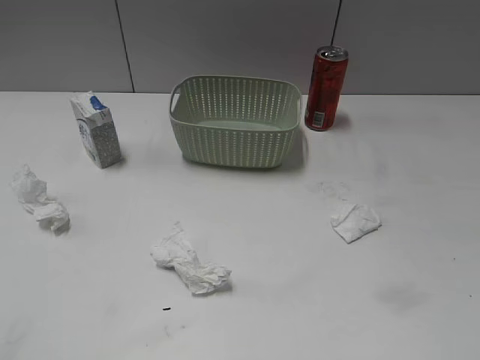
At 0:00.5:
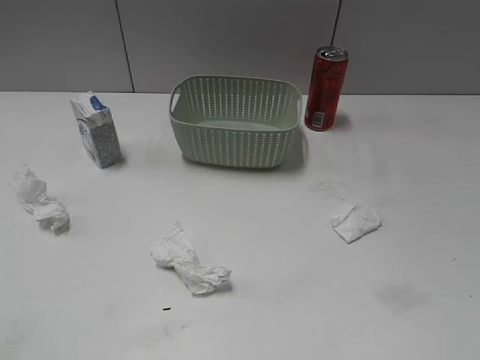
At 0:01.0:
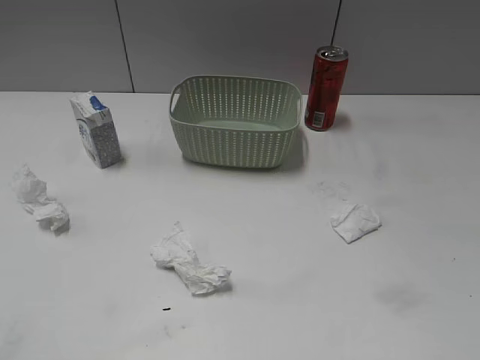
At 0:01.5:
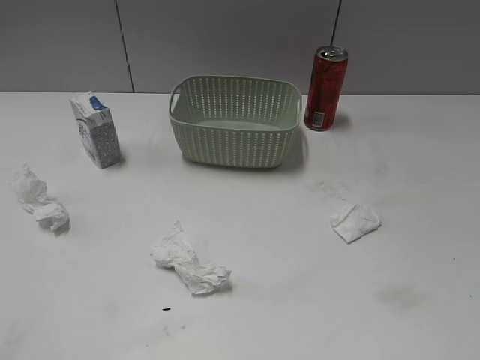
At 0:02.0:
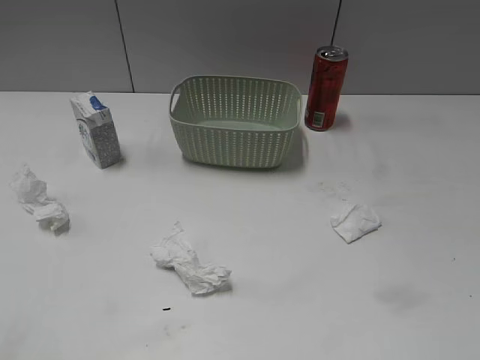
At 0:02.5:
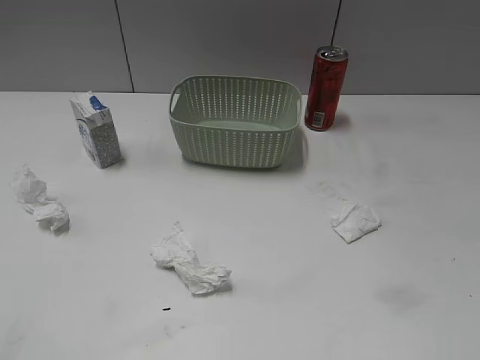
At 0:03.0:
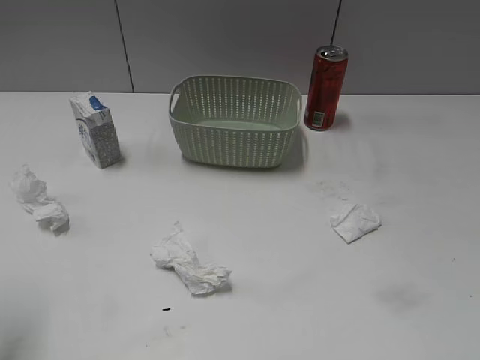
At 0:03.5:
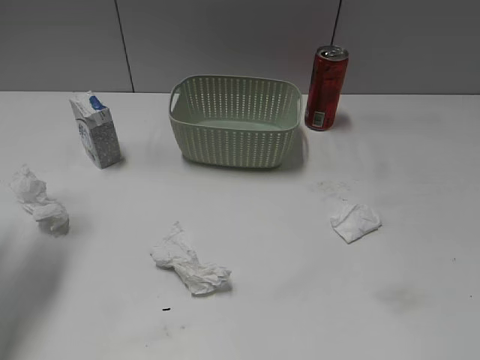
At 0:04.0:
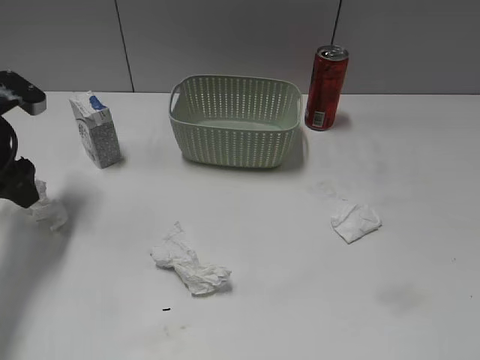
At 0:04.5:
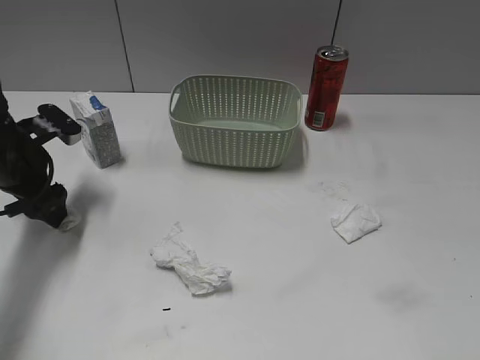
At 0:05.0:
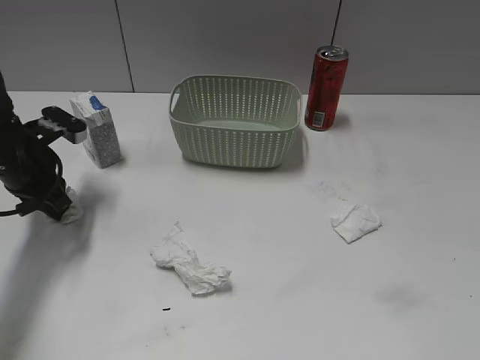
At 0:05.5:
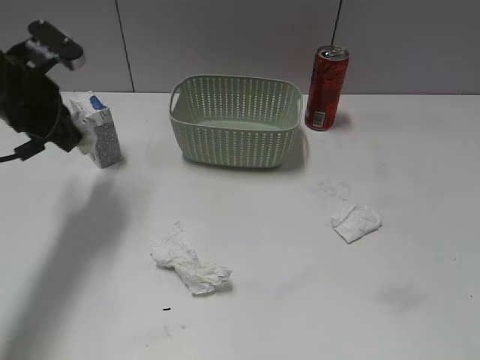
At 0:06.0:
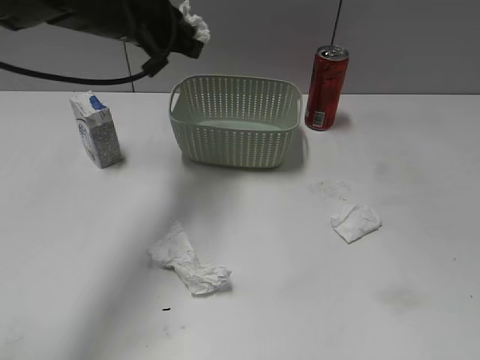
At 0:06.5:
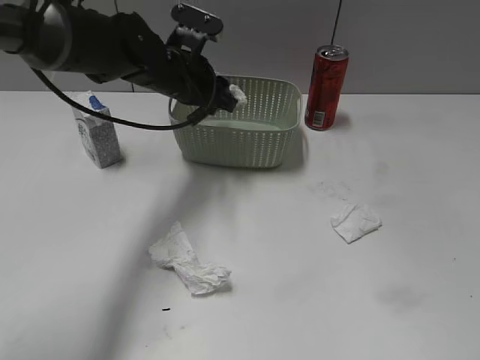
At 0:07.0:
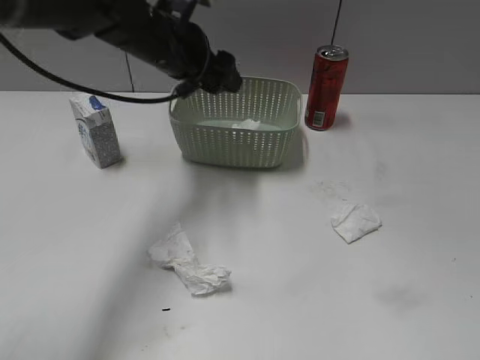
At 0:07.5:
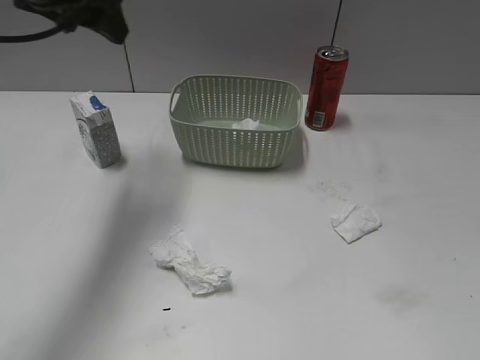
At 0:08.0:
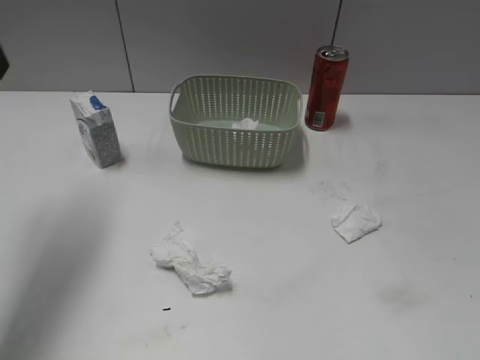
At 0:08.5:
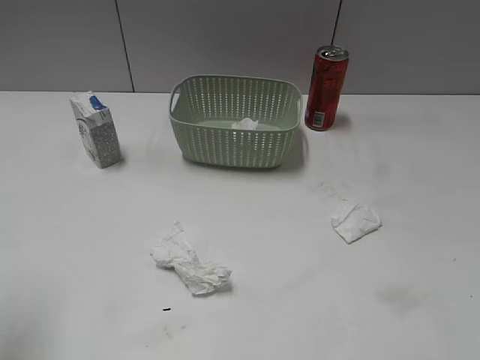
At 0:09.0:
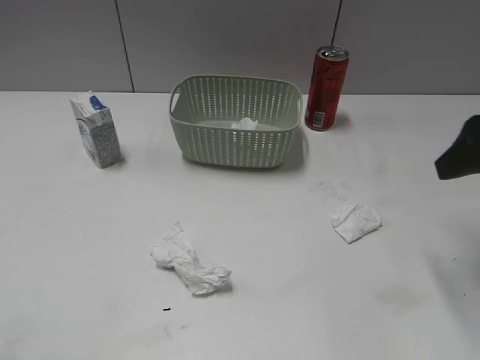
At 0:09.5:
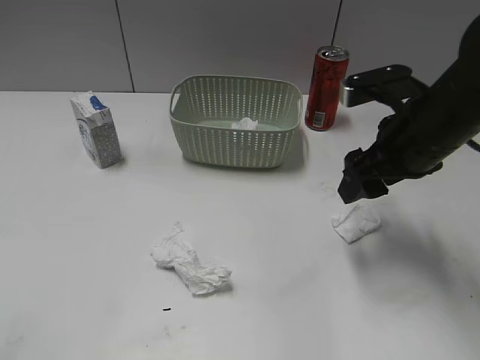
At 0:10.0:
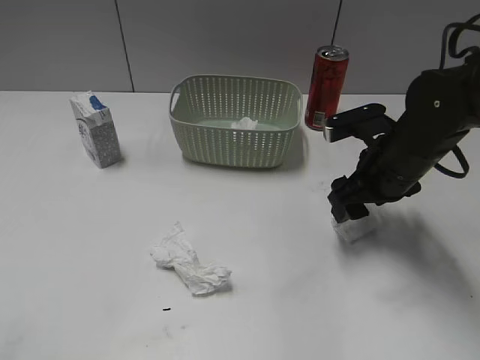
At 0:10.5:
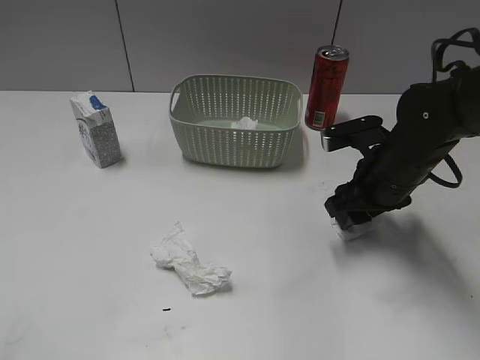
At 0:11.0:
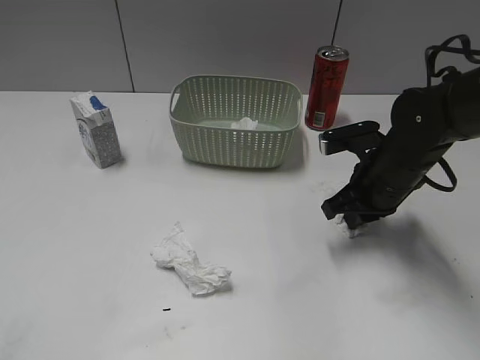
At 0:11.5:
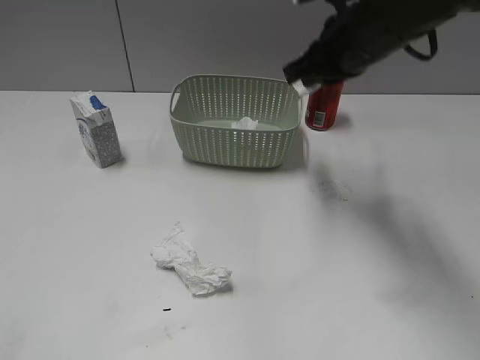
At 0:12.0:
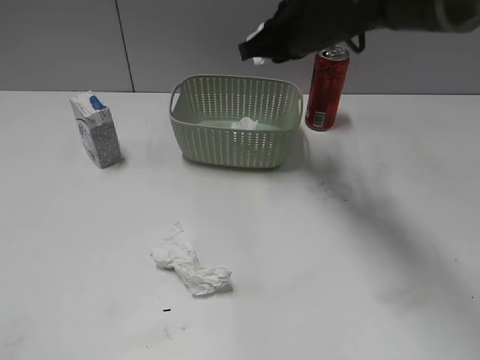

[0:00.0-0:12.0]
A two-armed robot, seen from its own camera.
Step, 0:03.0 to 0:05.0: Grasp the waste paper with left gripper.
Step, 0:05.5 to 0:07.0: Place the waste paper in the basket with left gripper.
Step, 0:07.5 to 0:11.0: Grasp the waste paper with right gripper.
0:02.0 to 0:04.0: The left gripper travels forward by about 35 cm.
0:04.0 to 0:06.0: The left gripper goes some 20 cm to the right and upward, and closes up.
0:06.0 to 0:08.0: The left gripper is displaced to the left, backward and upward by roughly 20 cm, and opens its fingers.
0:08.0 to 0:10.0: The right gripper goes some 35 cm forward, downward and to the left, while the left gripper shifts approximately 30 cm backward.
0:10.0 to 0:12.0: The right gripper heads forward, to the left and upward, covering roughly 20 cm, and closes its fingers.

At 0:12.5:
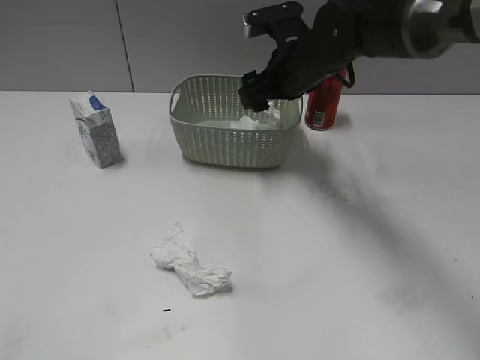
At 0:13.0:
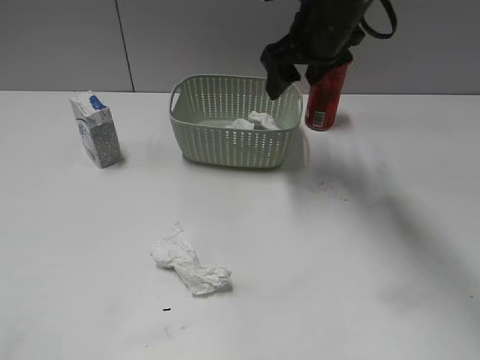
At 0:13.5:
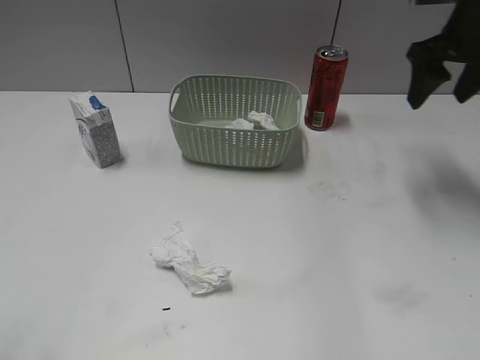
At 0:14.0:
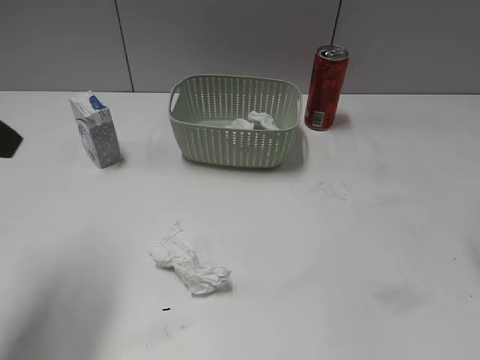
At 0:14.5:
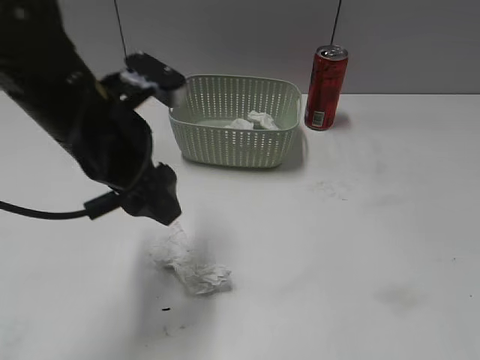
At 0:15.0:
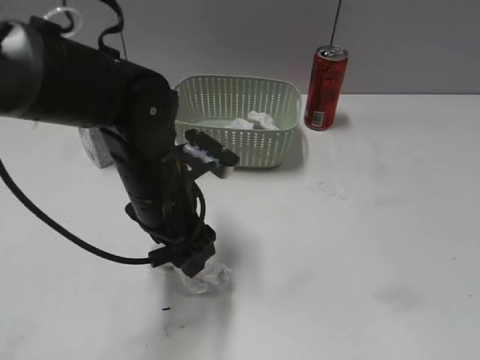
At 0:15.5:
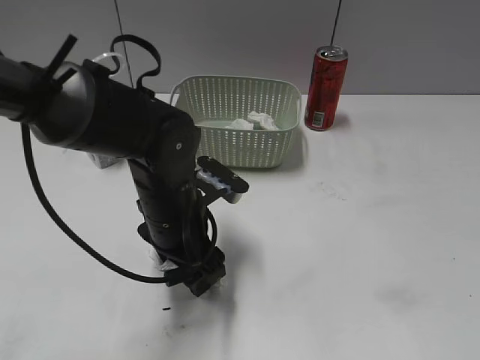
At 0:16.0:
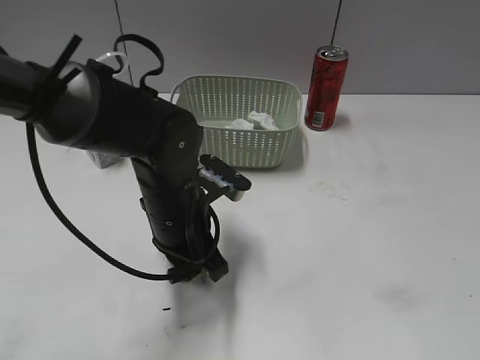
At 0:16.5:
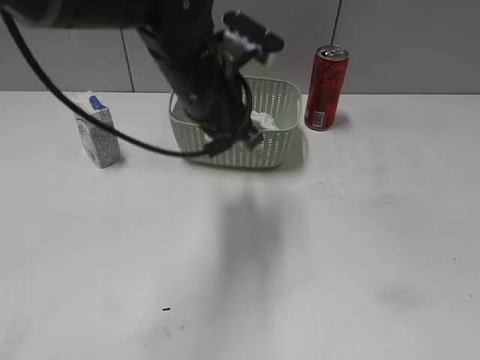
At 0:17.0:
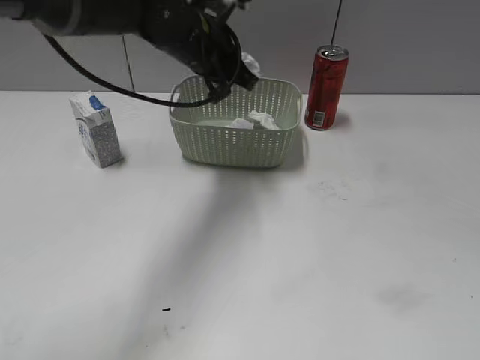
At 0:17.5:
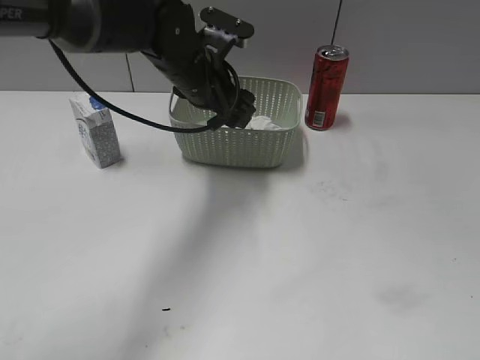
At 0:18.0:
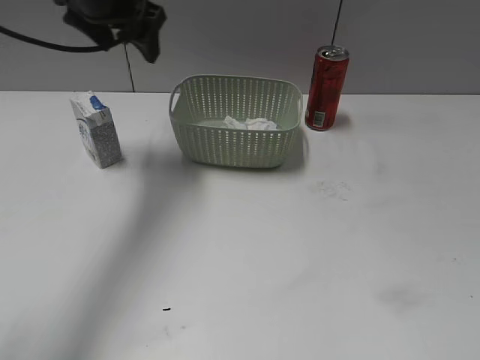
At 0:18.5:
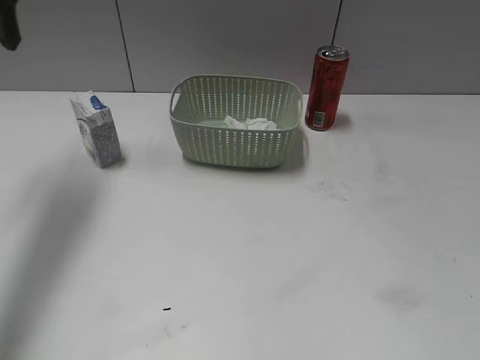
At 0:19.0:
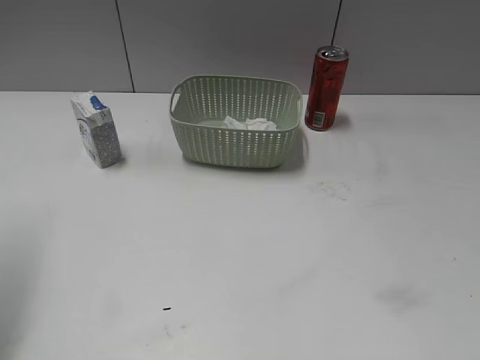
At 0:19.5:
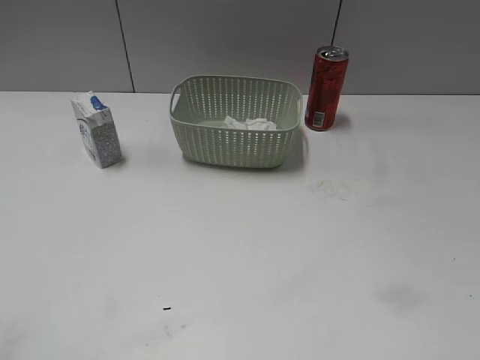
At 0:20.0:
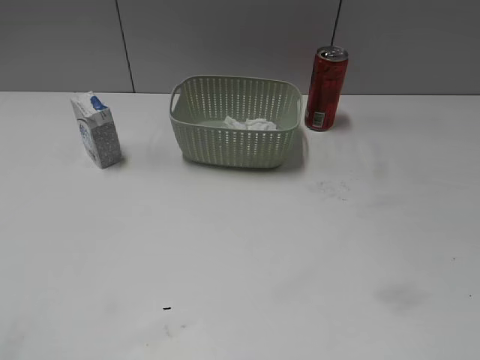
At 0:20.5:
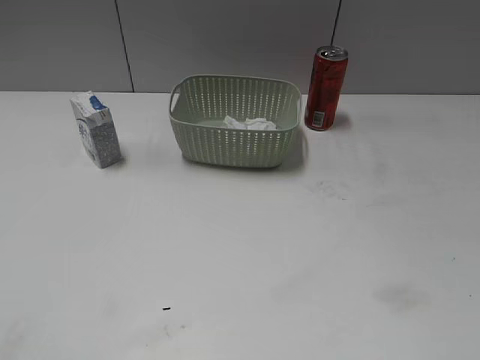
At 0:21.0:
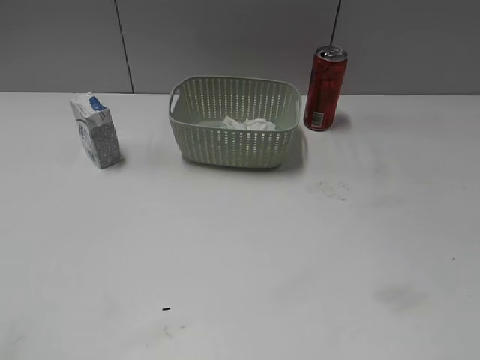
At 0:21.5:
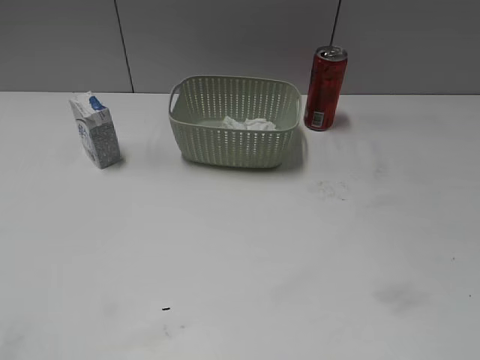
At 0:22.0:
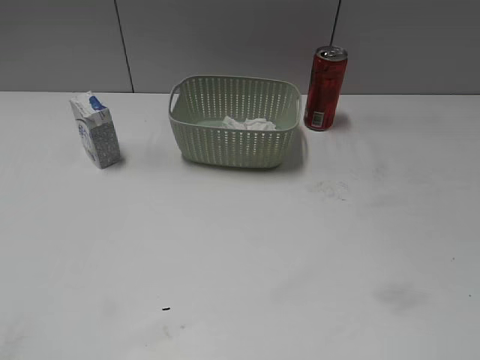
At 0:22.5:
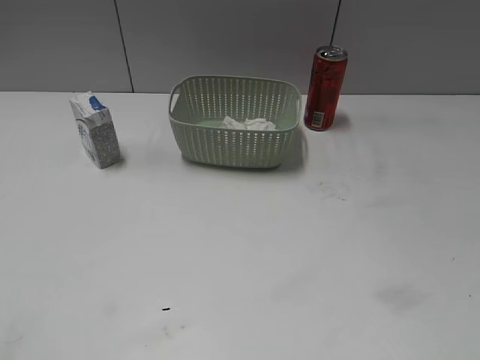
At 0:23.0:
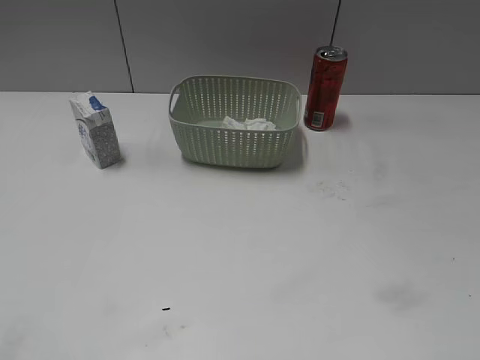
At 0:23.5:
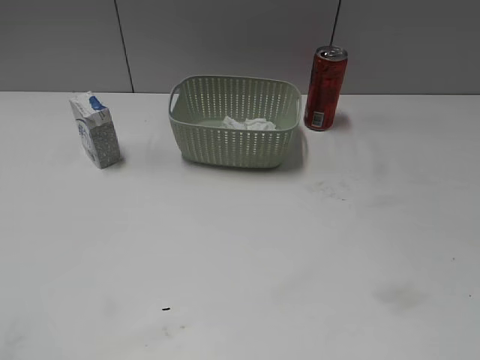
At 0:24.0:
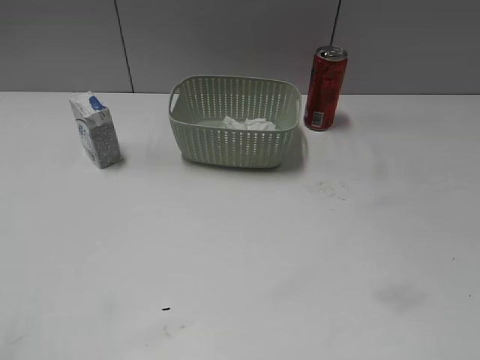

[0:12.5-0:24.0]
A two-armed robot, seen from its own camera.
Step, 0:13.0 to 0:16.0: Grasp the waste paper with left gripper.
Step, 0:16.5 to 0:17.5: Place the waste paper in the basket with left gripper.
0:12.5 to 0:14.5: The right gripper moves backward and to the right, roughly 35 cm, while the left gripper moves forward and to the right, about 35 cm.
0:14.5 to 0:16.5: The left gripper goes some 10 cm to the right and forward, travels downward and back again, approximately 10 cm each way, and closes its fingers. The right gripper goes some 15 cm backward.
0:16.5 to 0:18.5: The left gripper is displaced to the left by about 25 cm, and opens its fingers.
0:18.5 to 0:20.0: The left gripper shifts approximately 35 cm backward.
0:22.0 to 0:24.0: Neither gripper changes place.

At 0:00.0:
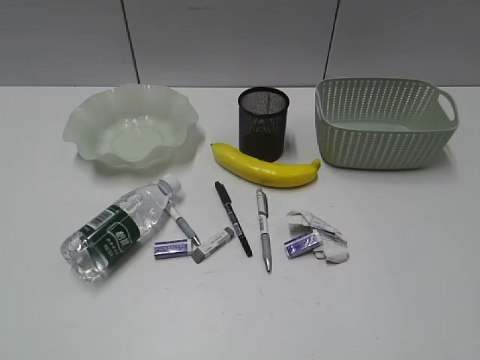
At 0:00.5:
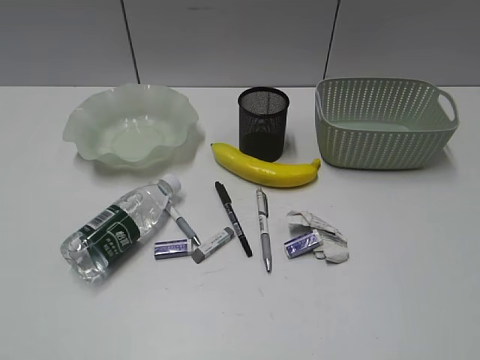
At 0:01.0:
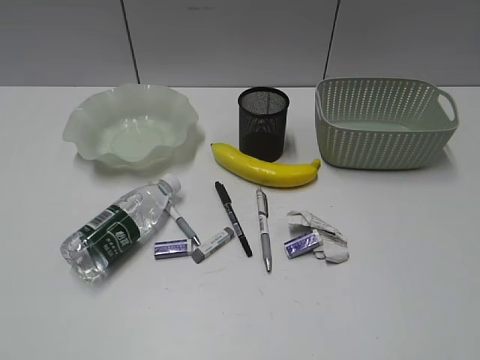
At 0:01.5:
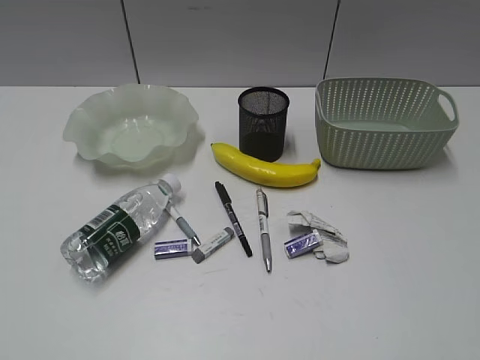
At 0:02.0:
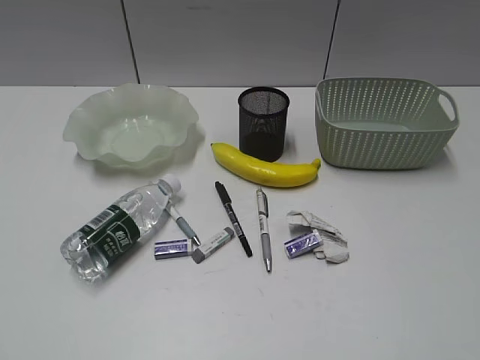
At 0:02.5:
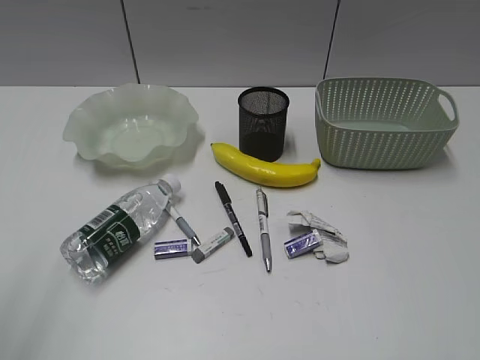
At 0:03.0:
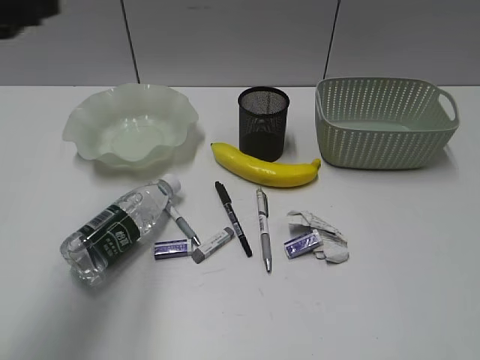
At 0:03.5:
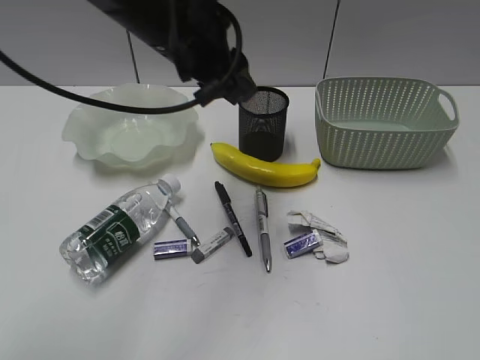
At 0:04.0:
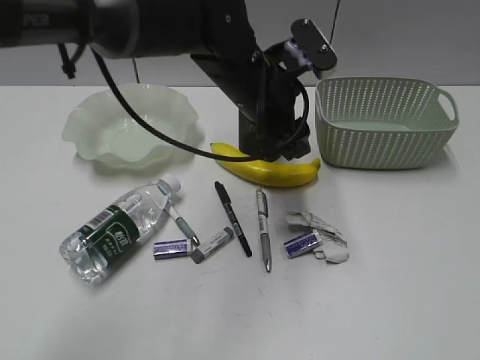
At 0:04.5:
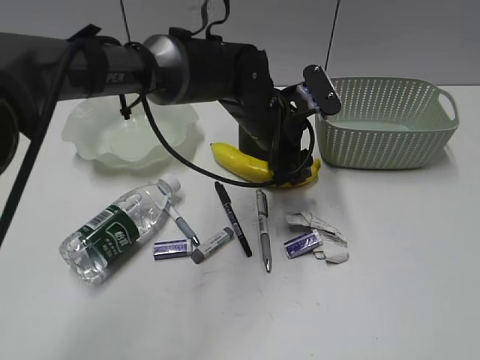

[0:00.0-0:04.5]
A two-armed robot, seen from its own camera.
0:02.0 to 0:04.5: The left gripper is displaced forward and to the right by some 50 cm, and opens up.
